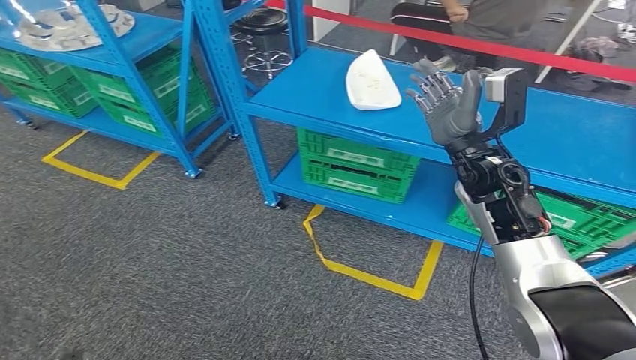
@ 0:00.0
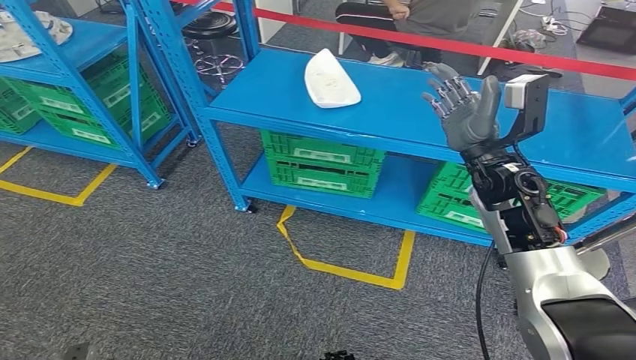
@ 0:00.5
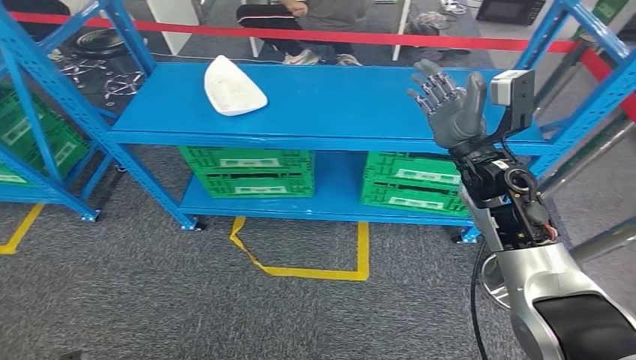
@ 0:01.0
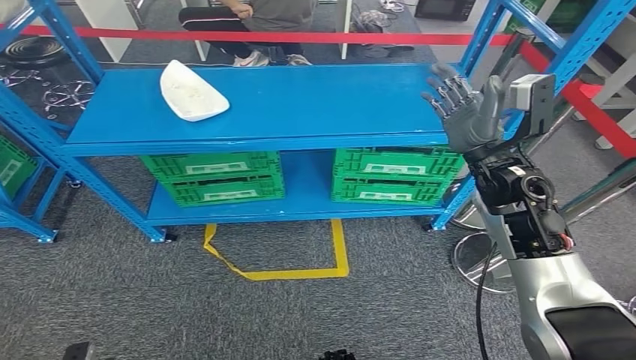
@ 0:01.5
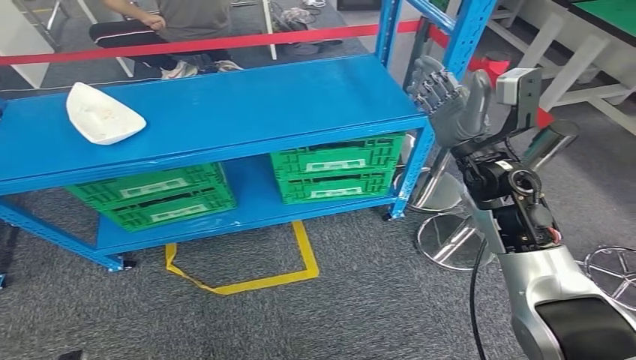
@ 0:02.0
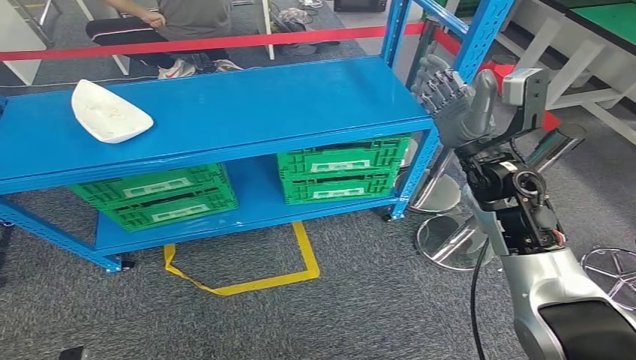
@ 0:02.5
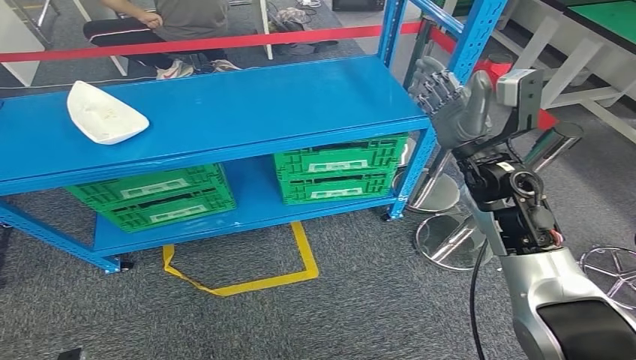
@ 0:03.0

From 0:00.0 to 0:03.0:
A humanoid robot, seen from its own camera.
Step, from 0:00.0 to 0:03.0: Move to the initial position at the workbench.
